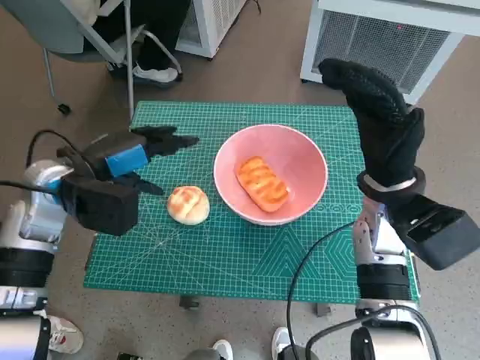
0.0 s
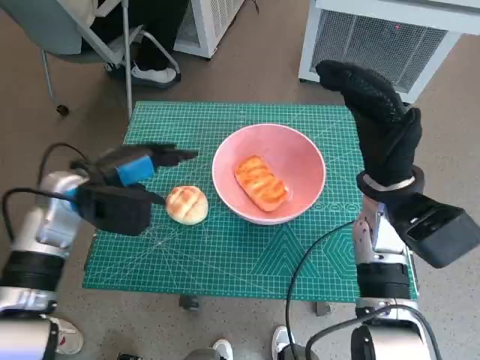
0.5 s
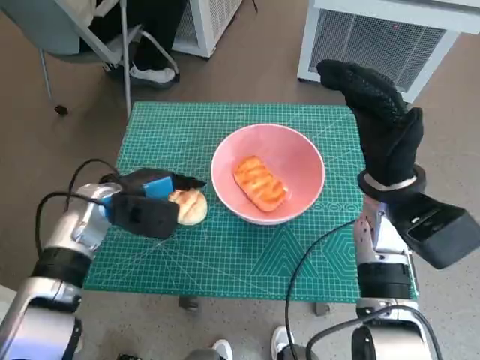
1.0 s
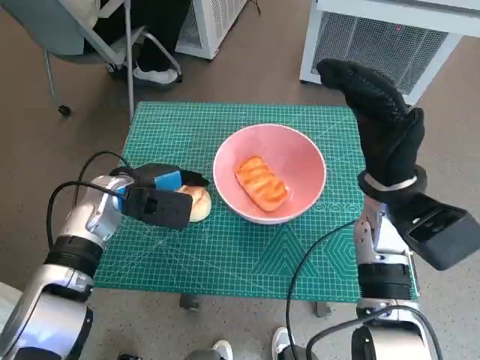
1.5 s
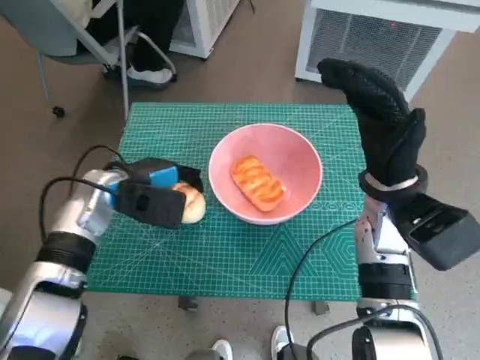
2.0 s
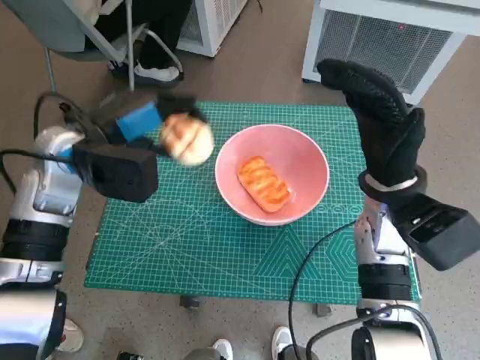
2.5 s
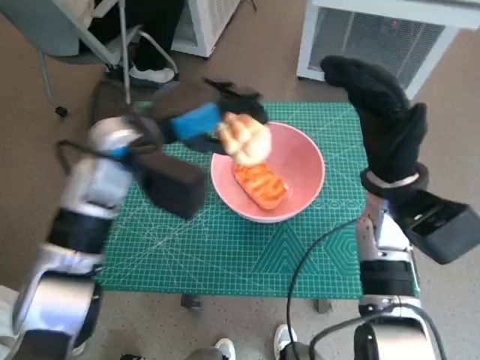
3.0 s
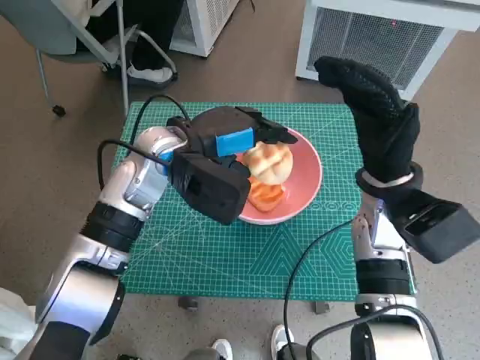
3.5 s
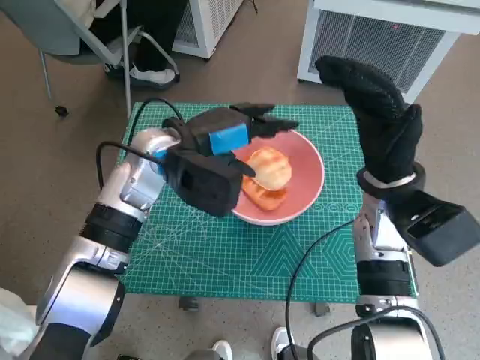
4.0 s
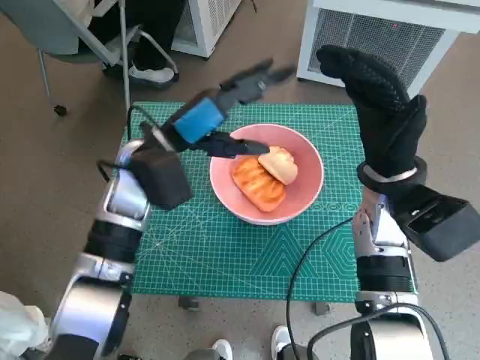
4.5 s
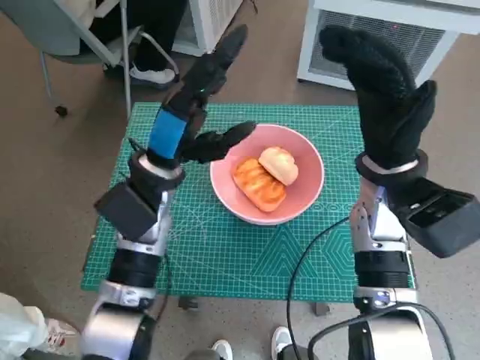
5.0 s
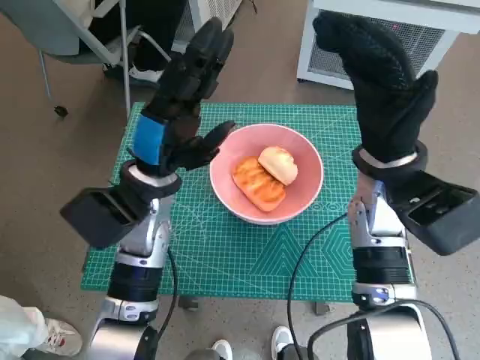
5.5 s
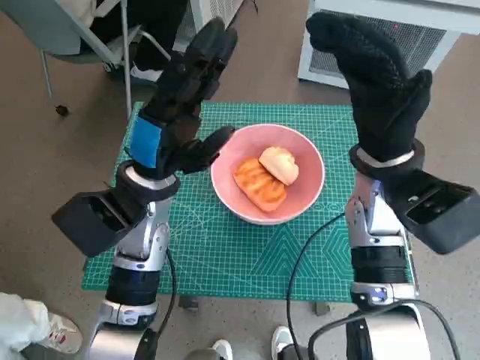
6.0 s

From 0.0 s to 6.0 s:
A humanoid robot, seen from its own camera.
Task of the whole recording: Push the bowl to the center of the table and put the bread into the bowl.
Step, from 0.0 s to 1.5 s: Grasp the round bread with left hand.
Step, from 2.0 s to 4.0 s: Place the round bread in pink bowl with left hand.
From 0.0 s to 2.0 s: The left hand moves downward, some 5 cm.
From 2.0 s to 4.0 s: The left hand heads to the right and upward, covering approximately 10 cm.
From 4.0 s to 6.0 s: The left hand goes approximately 5 cm backward.
